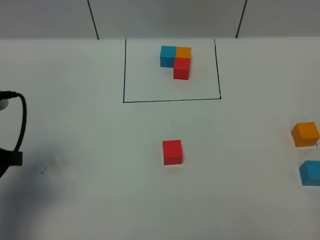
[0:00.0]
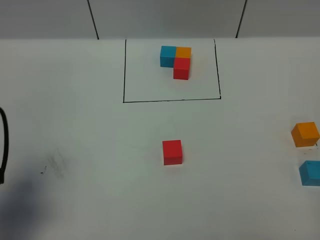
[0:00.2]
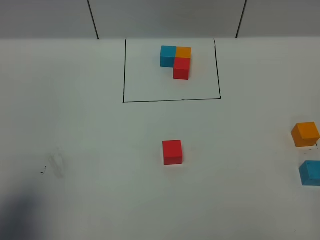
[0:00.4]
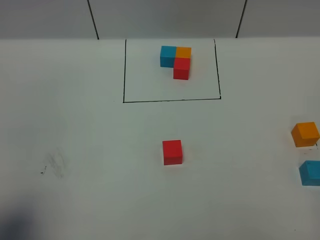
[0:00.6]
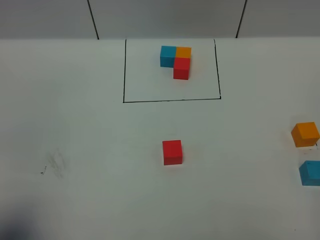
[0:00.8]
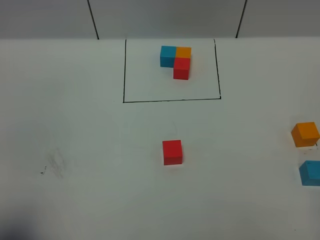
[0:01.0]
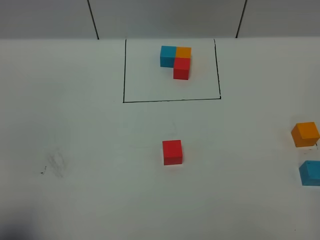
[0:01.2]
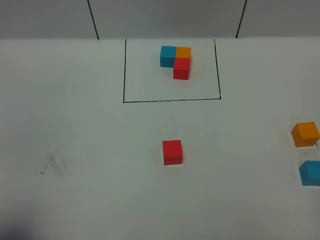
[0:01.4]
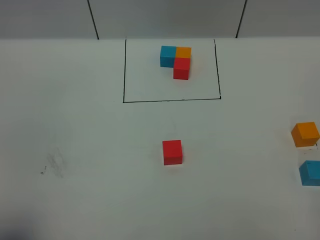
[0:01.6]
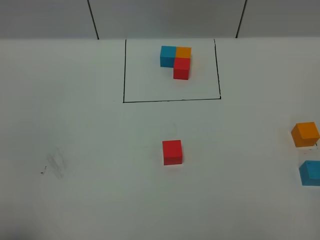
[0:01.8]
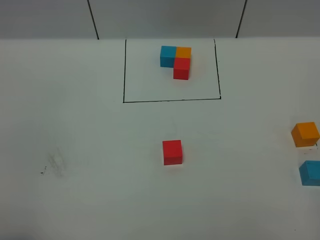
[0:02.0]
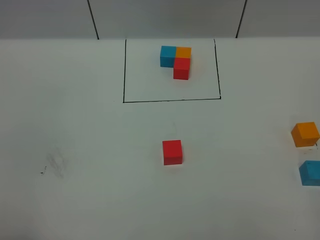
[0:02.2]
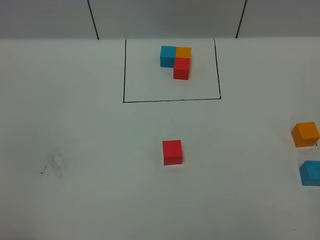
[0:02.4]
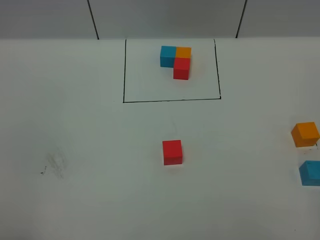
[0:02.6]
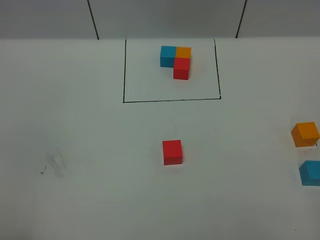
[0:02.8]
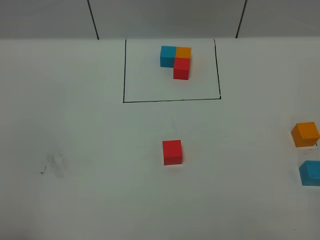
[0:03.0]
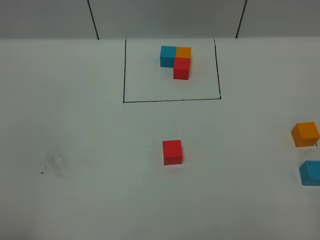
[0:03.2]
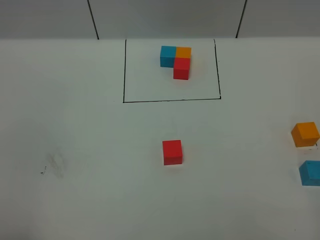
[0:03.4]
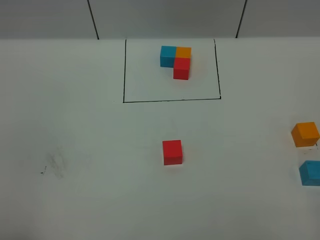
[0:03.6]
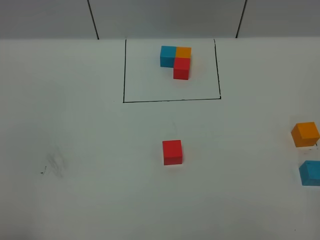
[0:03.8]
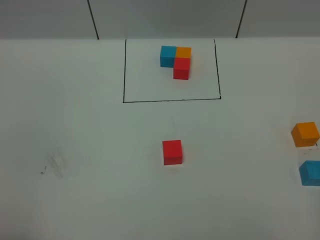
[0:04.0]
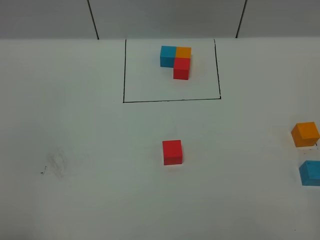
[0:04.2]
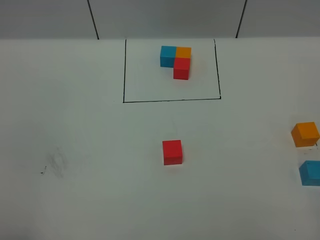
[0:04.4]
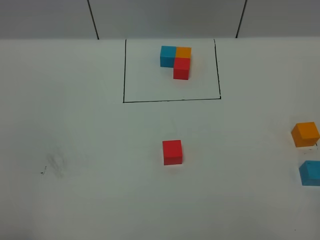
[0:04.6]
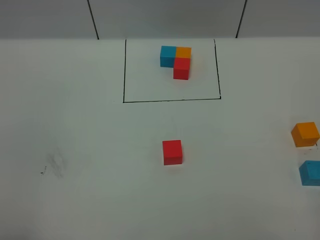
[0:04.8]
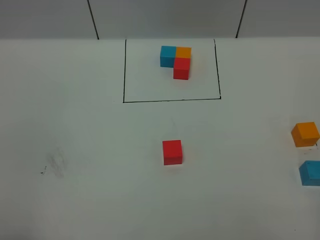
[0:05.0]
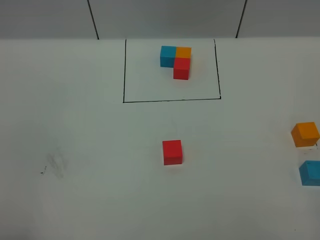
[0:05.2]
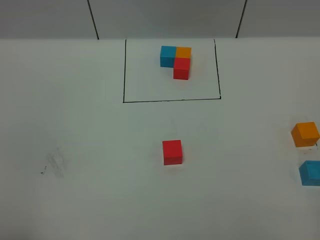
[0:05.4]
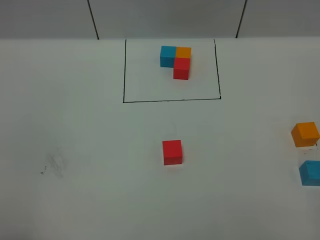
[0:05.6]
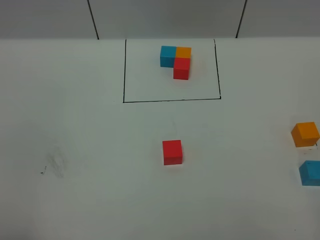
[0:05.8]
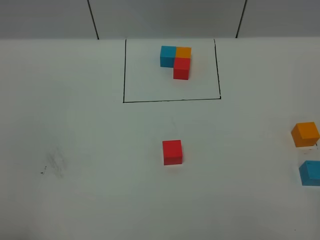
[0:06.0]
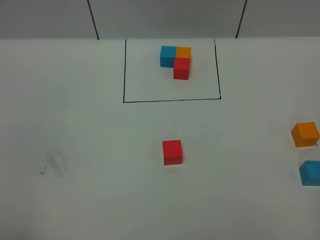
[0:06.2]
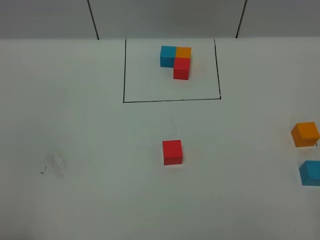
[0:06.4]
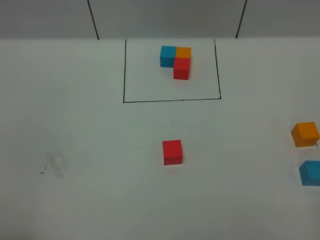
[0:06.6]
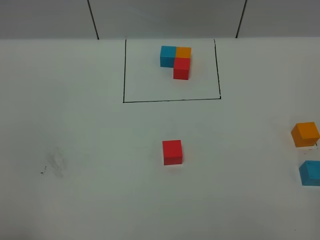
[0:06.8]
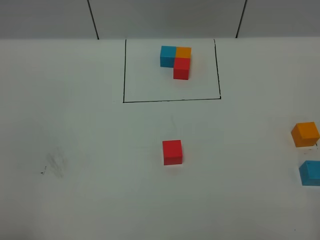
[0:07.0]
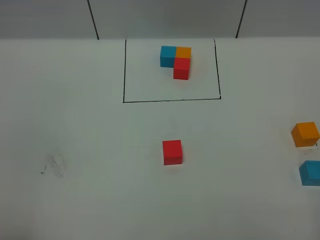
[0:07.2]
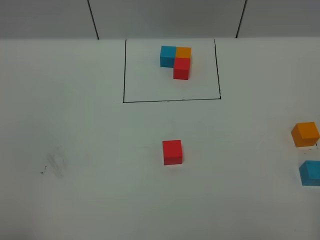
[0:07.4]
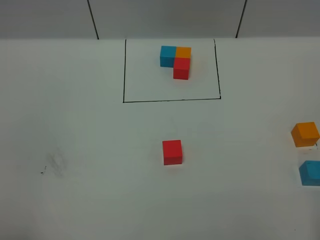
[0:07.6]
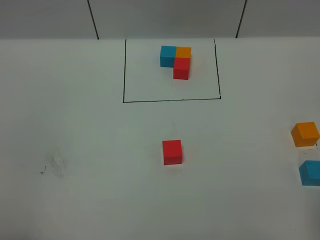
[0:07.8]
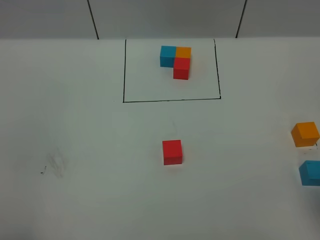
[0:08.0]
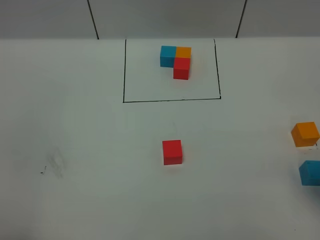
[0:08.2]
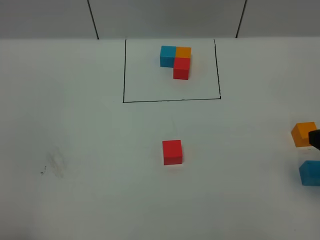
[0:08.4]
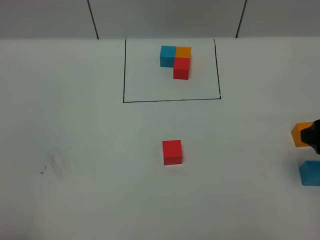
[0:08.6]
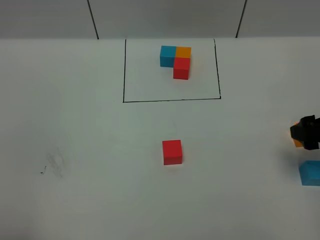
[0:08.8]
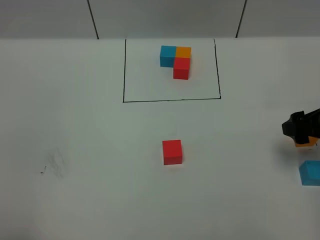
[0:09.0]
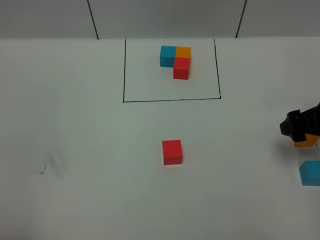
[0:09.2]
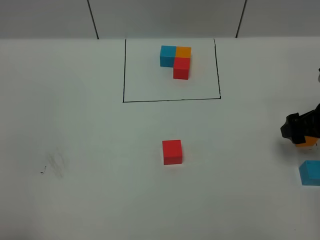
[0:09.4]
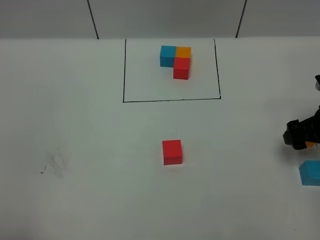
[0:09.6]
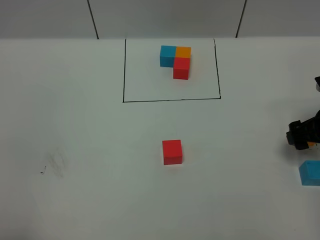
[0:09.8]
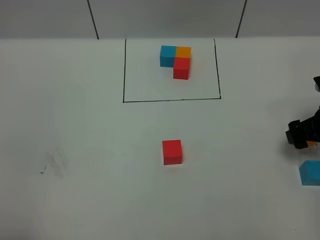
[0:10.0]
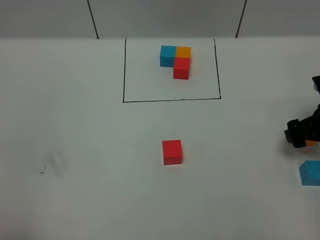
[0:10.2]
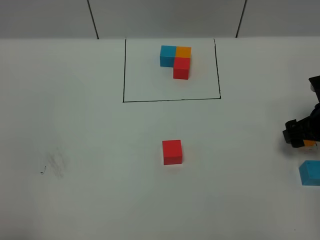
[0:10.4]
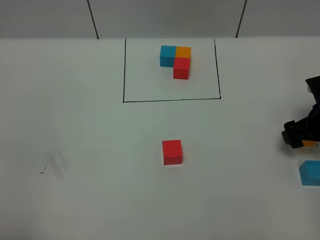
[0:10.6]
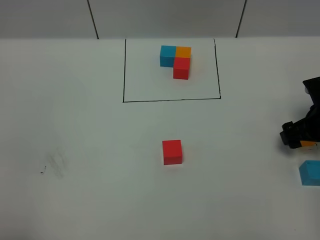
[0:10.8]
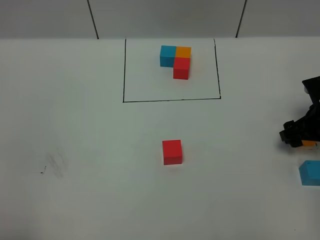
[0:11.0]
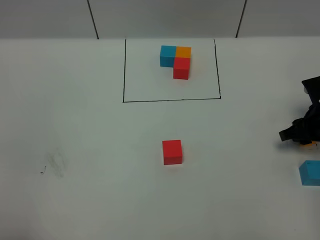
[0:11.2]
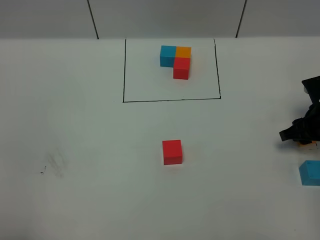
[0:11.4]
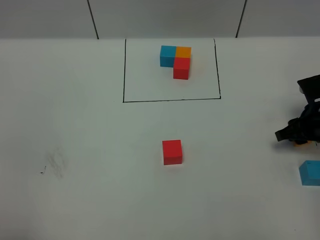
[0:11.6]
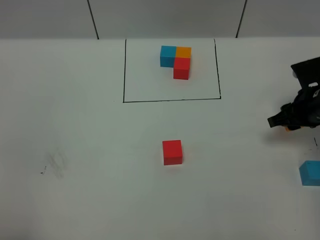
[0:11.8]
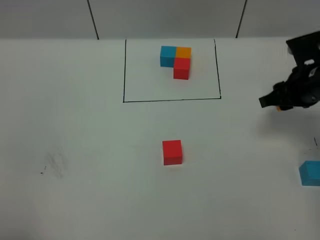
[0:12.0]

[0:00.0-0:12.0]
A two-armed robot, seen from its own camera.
Task of the whole recording: According to the building block template in front, assemble the scattered blocks together.
0:00.0 to 0:01.6: The left gripper travels backward by approximately 15 cm.
0:03.0 to 0:06.0: Neither gripper changes place.
0:07.6 to 0:09.0: The right gripper travels forward and downward by about 25 cm.
0:09.0 to 0:10.4: The right gripper moves downward, about 5 cm.
0:10.4 to 0:12.0: The right gripper moves upward and to the left, roughly 10 cm, and closes its fingers.

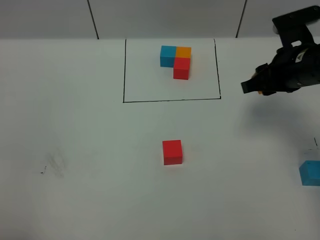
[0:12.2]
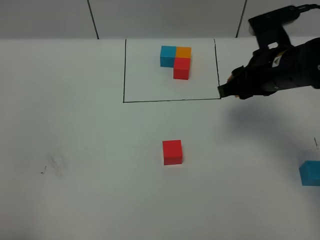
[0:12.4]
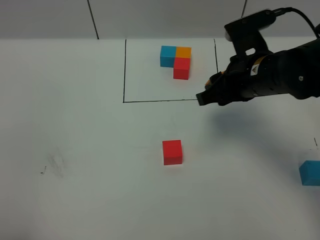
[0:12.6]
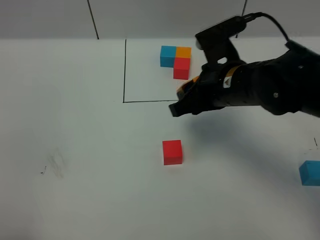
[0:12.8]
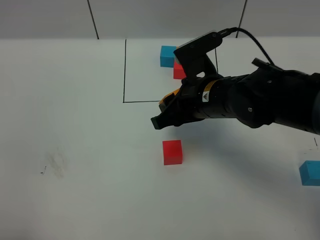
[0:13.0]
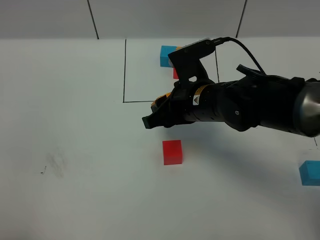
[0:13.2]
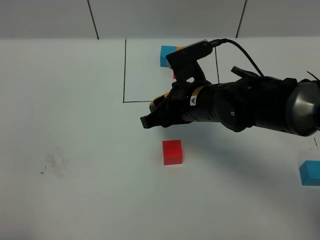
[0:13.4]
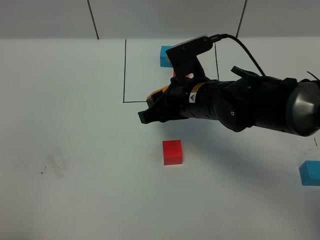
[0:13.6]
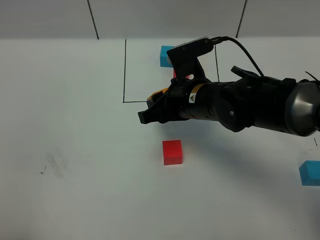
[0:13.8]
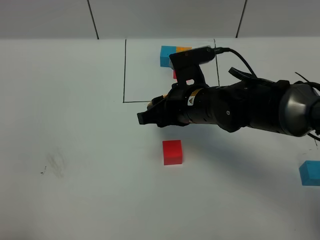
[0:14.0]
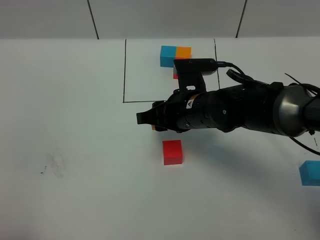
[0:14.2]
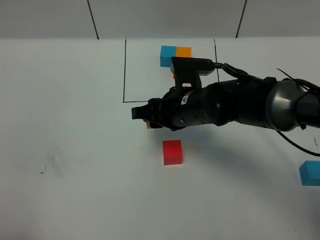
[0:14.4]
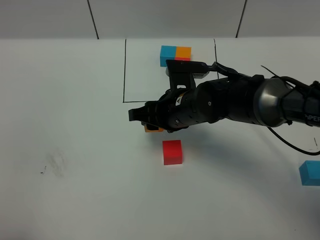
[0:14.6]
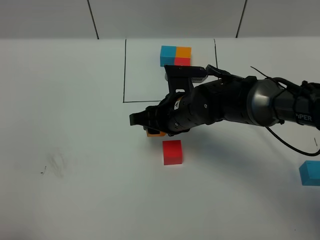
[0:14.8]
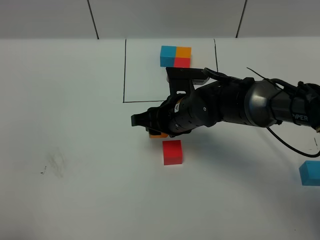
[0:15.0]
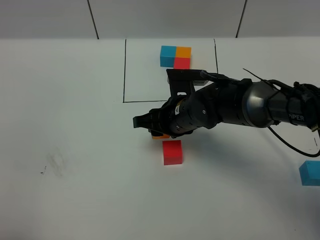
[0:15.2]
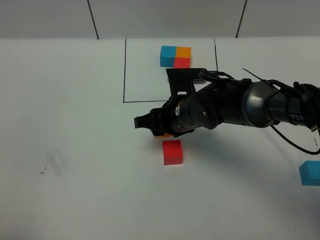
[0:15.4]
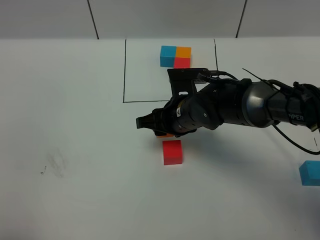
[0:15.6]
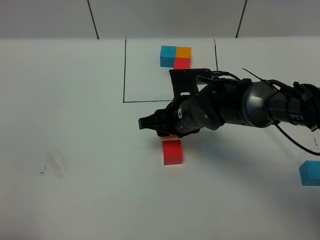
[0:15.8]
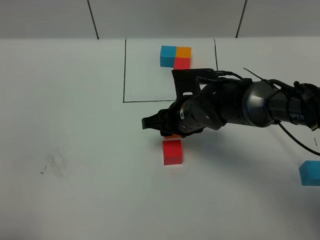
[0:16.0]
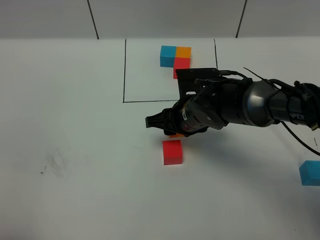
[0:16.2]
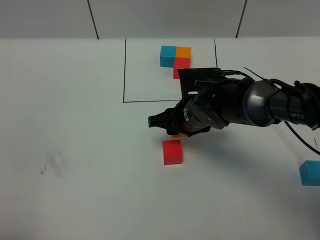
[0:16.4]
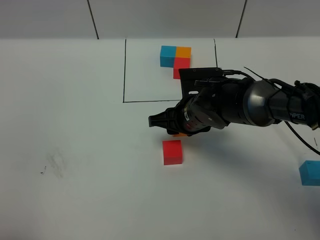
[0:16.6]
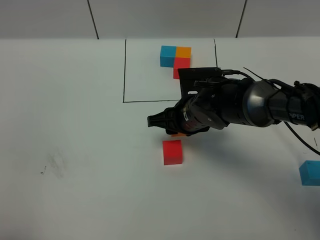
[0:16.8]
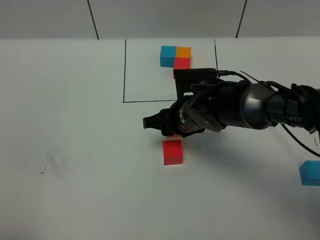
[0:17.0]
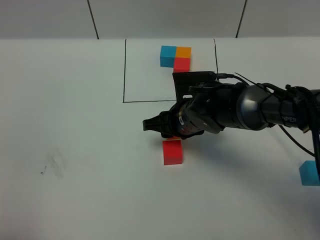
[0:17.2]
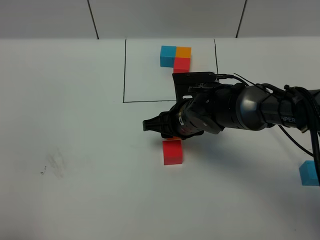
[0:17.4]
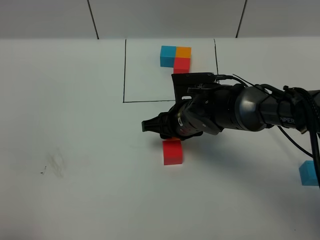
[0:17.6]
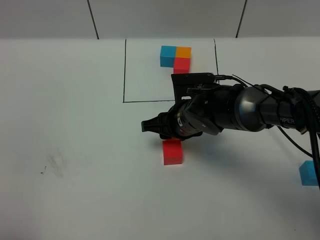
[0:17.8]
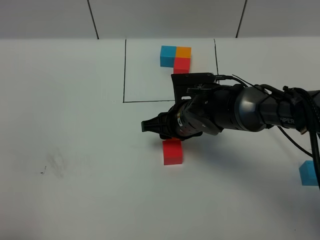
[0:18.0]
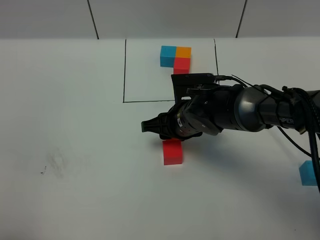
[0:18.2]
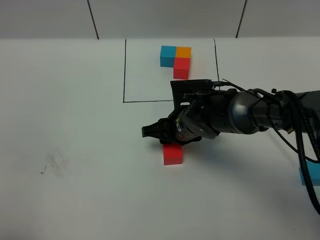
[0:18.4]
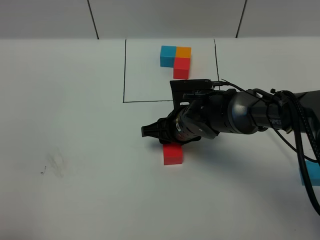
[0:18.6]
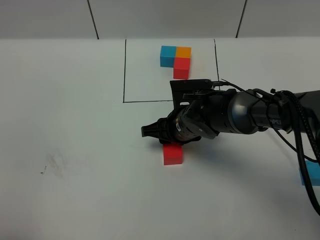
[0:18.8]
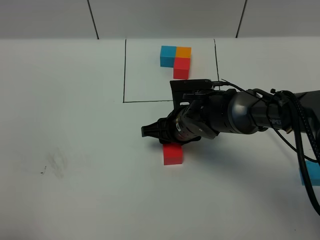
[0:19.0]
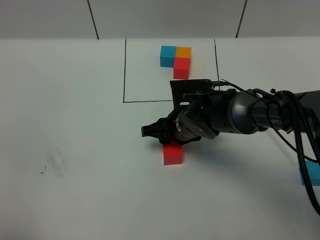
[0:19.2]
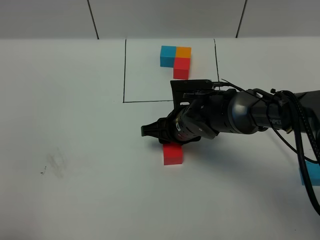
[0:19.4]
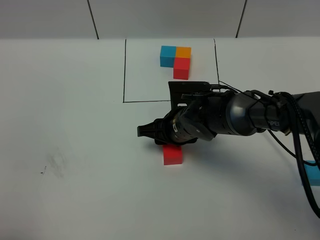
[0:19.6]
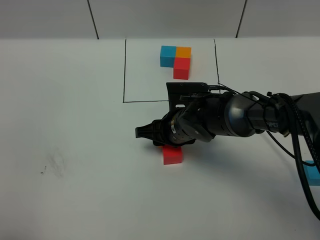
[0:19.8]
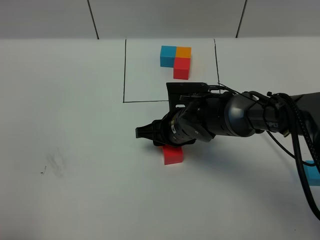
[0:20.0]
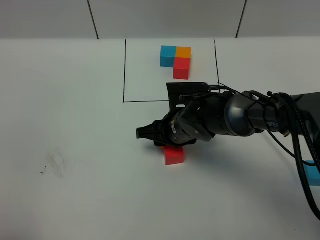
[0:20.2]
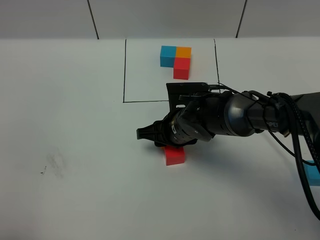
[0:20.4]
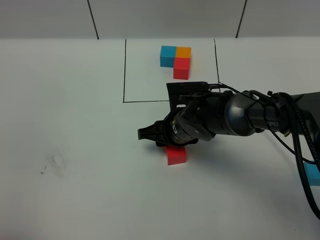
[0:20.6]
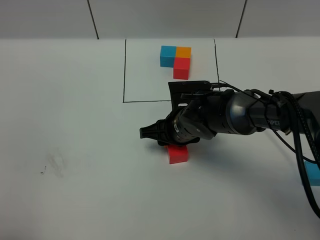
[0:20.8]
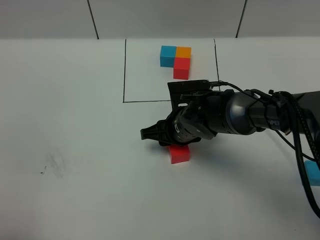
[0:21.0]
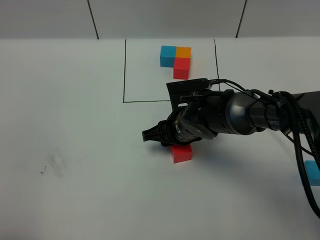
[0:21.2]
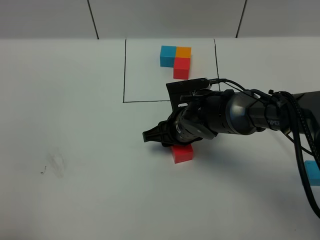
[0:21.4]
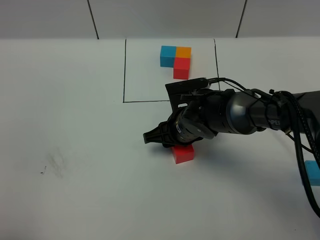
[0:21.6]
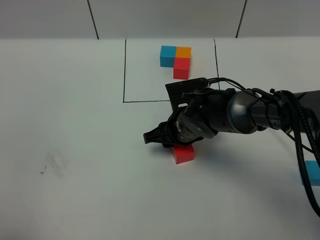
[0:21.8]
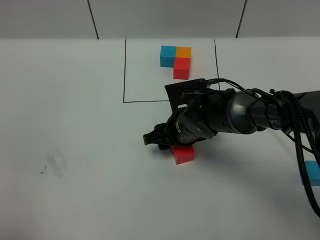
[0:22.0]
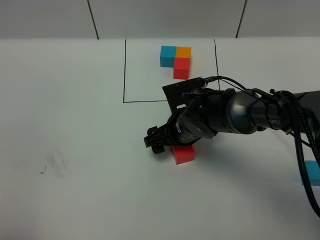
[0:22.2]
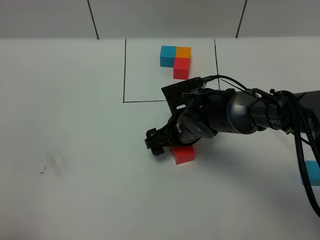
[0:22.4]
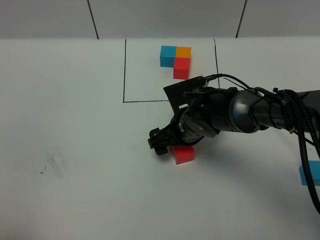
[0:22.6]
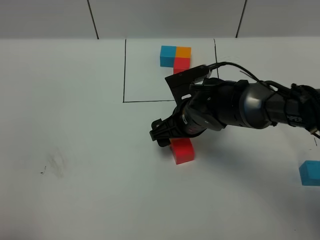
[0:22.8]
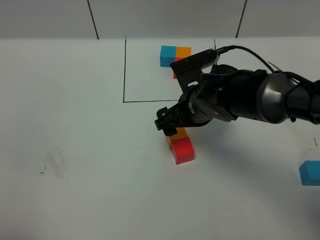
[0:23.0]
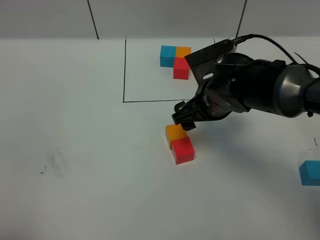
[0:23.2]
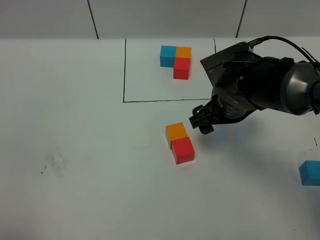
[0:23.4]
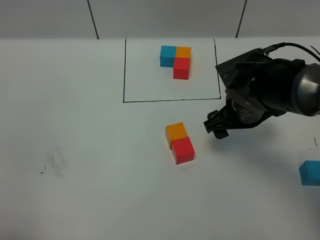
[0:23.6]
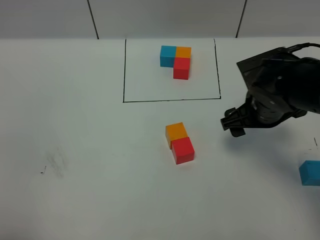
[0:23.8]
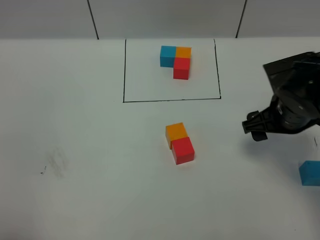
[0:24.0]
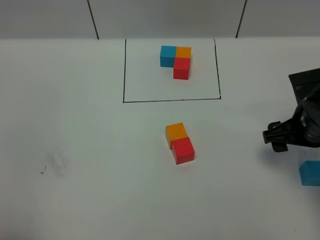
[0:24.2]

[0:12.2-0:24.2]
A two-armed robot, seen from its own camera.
Task of the whole recording: According to the building block template in front, assemble the scattered blocks together.
Step, 0:12.2 to 0:23.4: Put the orange cube on the behind of the red cube.
0:12.2 to 0:13.8: The right gripper shifts approximately 15 cm to the left.
0:13.8 to 0:15.2: The right gripper goes some 5 cm downward.
0:15.2 to 0:21.2: The grippers make only small movements.
0:21.2 to 0:22.6: The right gripper opens up.
0:22.6 to 0:24.2: The right gripper is displaced to the right by roughly 20 cm.
